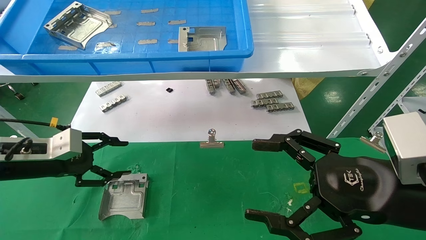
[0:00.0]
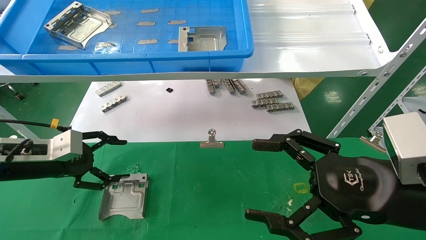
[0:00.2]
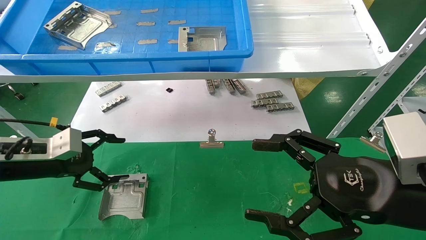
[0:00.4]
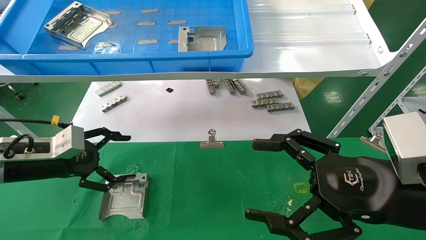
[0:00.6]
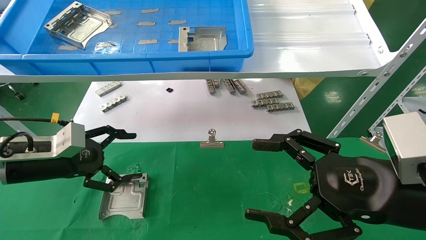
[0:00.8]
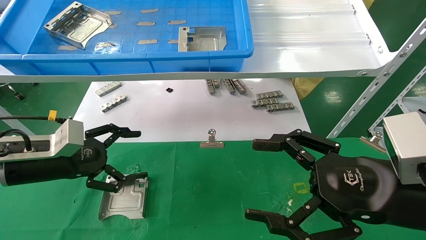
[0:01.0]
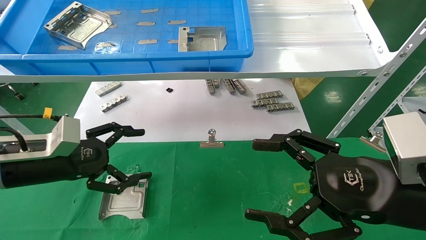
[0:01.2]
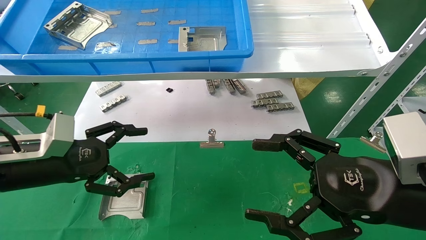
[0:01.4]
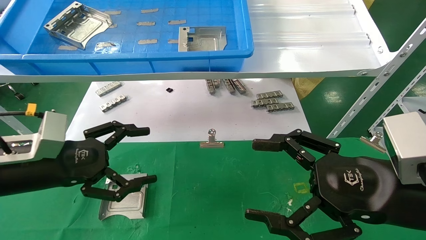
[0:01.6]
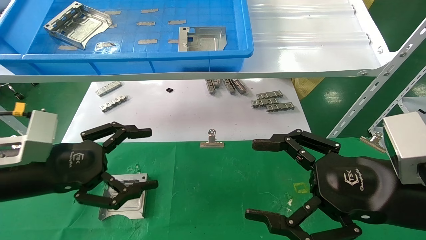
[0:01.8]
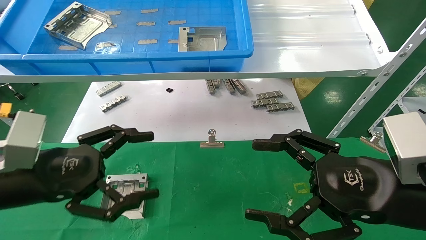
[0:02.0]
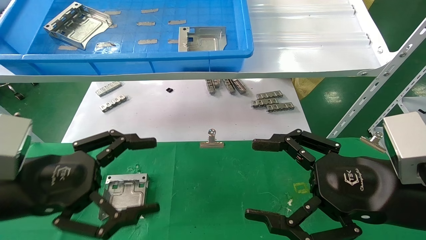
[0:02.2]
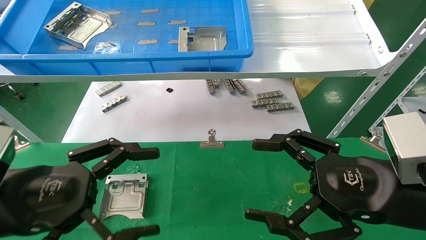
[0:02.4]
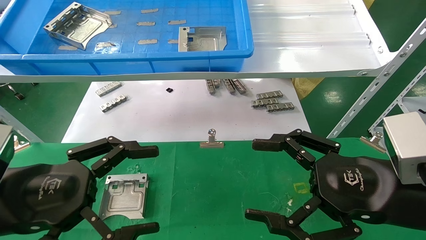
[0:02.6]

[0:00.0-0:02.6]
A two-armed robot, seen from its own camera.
Task of the whole recording: use the mechanical arm to pick up the parts and place them on the table.
0:00.0 to 0:01.2: The left gripper changes place by about 5 cm, and opens up.
0:01.2 to 0:02.6: The left gripper heads backward, covering some 10 cm.
